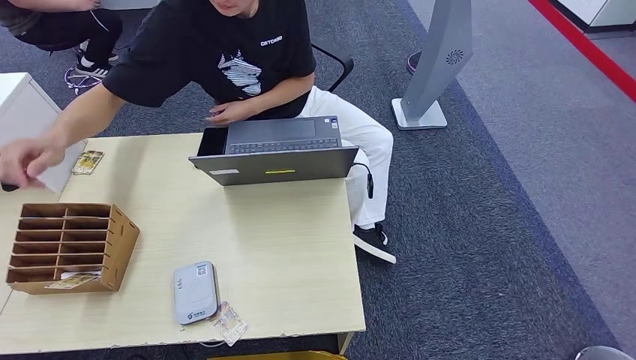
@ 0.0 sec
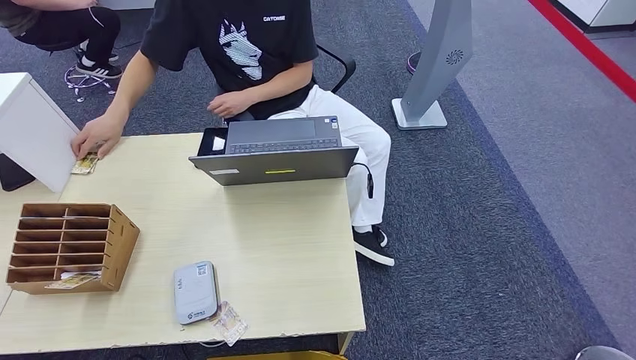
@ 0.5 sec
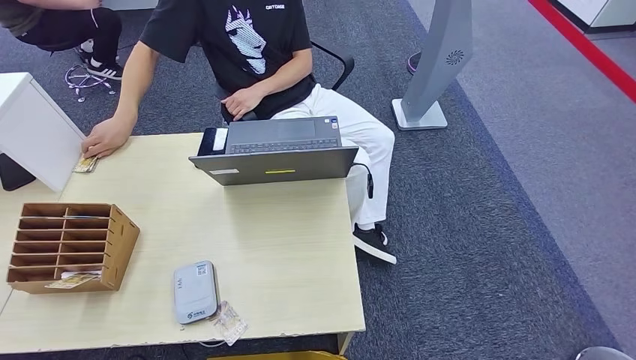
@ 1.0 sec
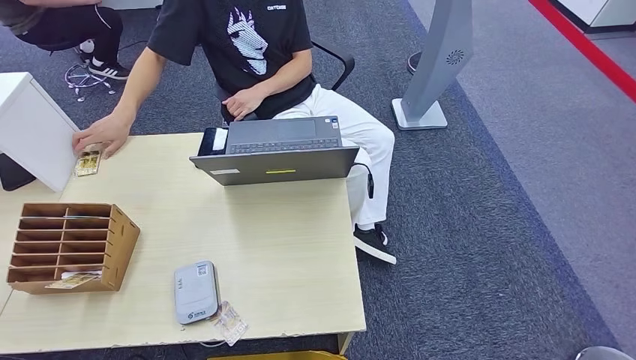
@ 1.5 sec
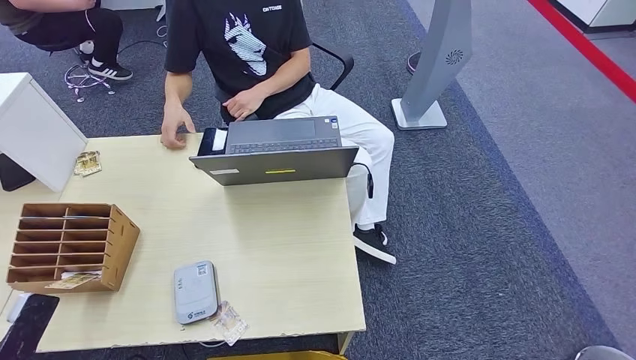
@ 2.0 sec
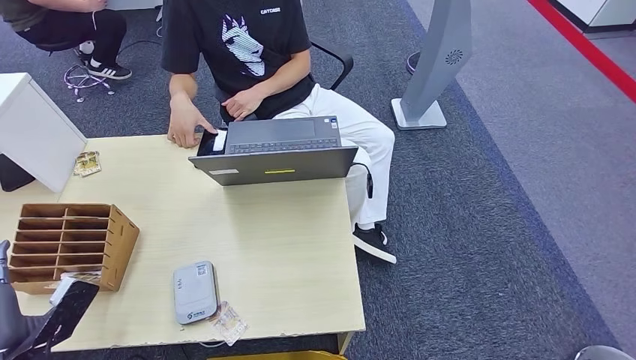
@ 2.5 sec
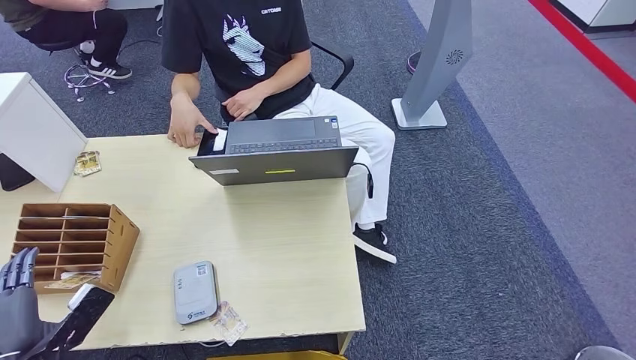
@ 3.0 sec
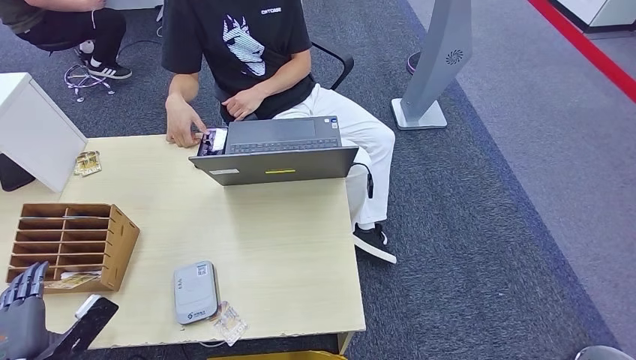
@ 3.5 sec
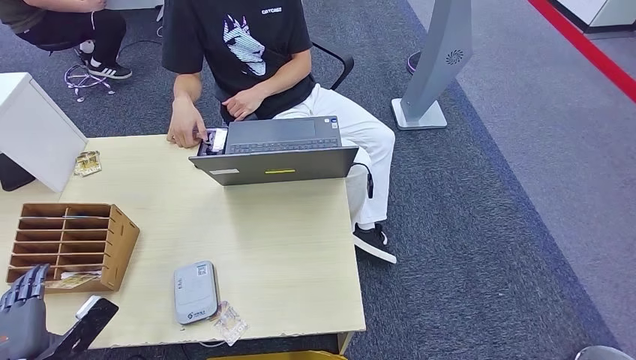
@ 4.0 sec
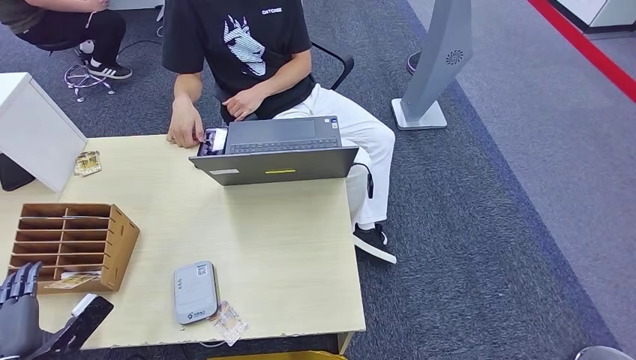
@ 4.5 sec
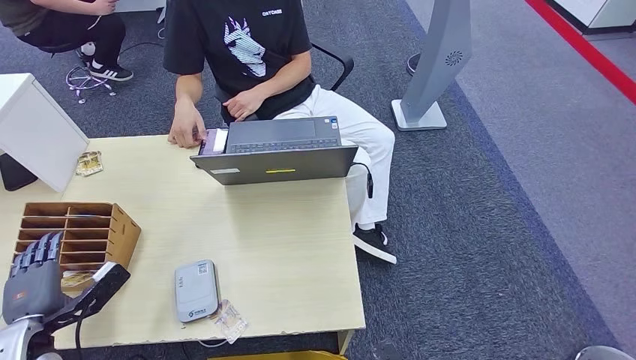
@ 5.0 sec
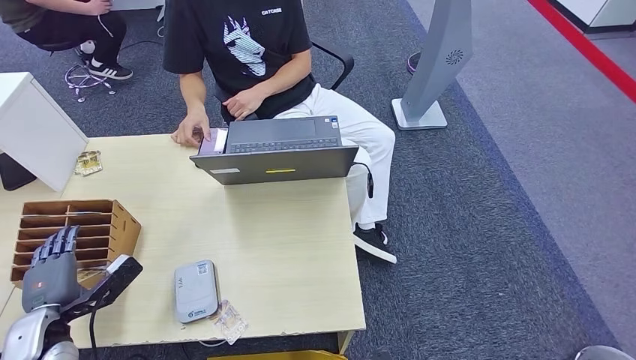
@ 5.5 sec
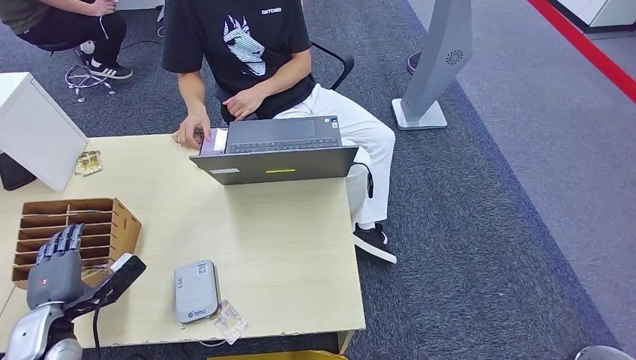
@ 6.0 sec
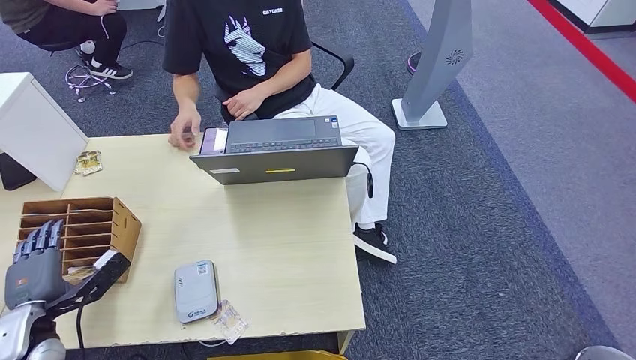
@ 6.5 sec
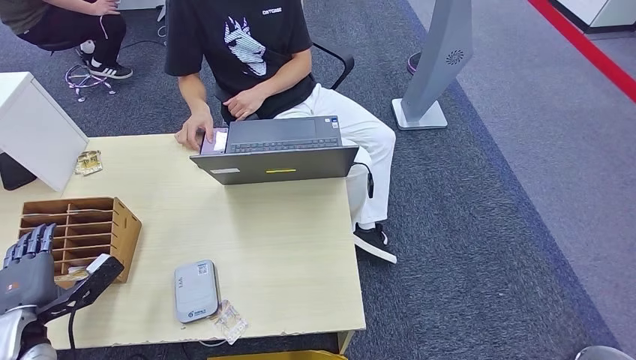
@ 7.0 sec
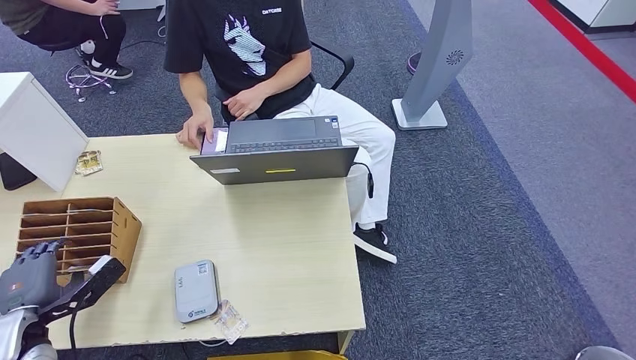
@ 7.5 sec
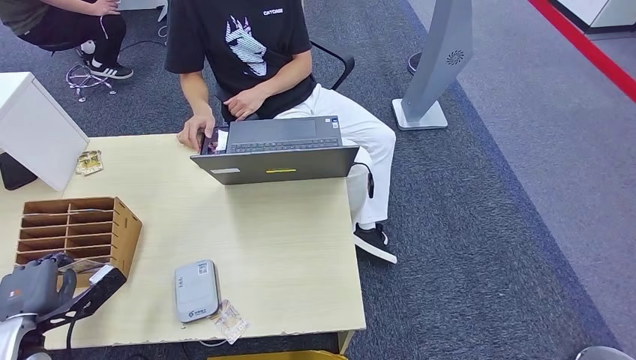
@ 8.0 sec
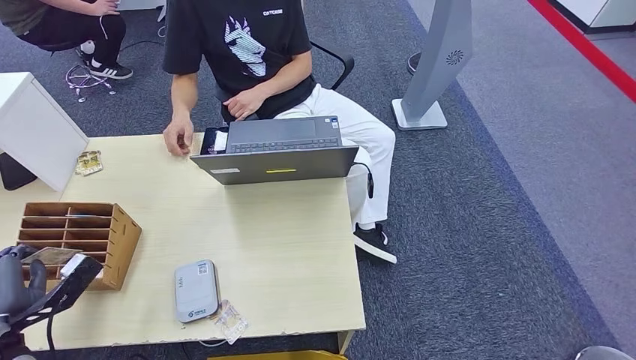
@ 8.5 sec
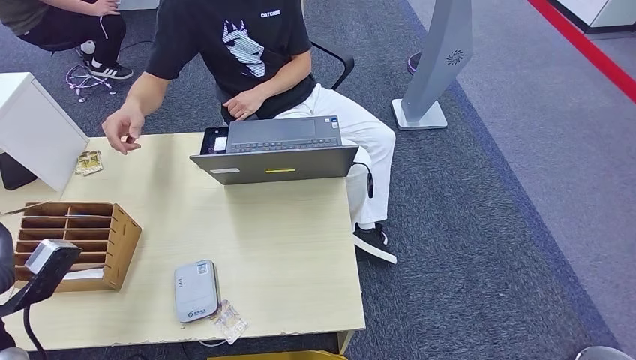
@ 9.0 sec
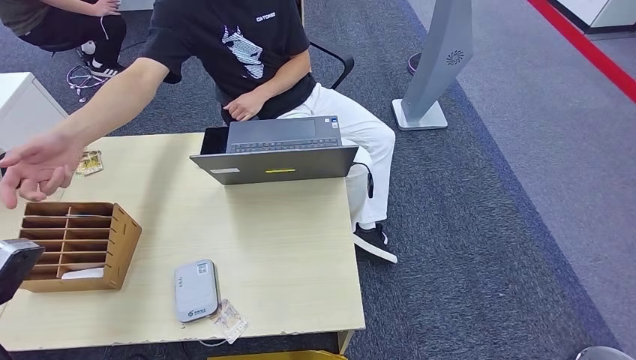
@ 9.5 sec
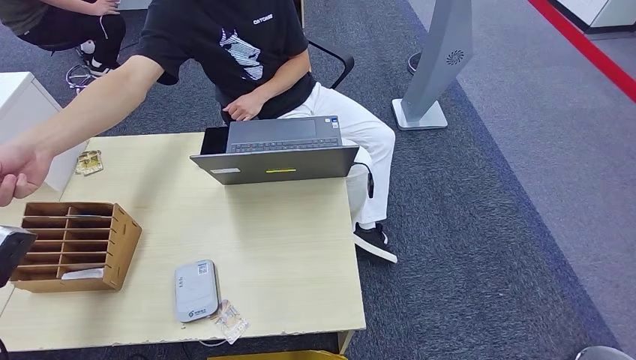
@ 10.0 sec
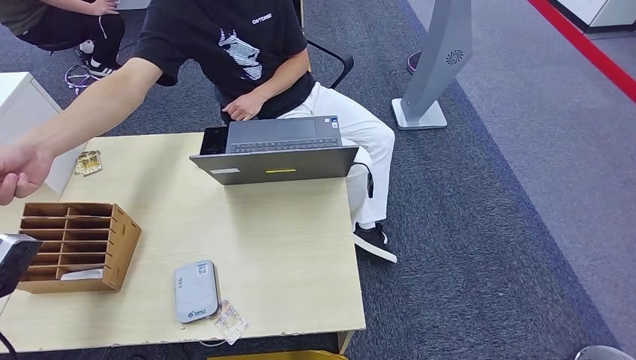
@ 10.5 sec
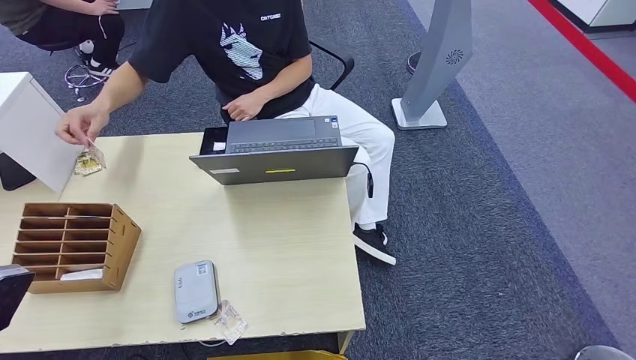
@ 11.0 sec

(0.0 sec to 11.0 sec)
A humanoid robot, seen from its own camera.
Step, 0.0 sec - 8.5 sec: Pick up the room key from the key card box.
Step, 9.0 sec - 11.0 sec: Hand the room key to the person.
0.0 sec - 2.0 sec: The left hand goes roughly 15 cm forward and downward.
2.0 sec - 3.5 sec: The hands stay close to where they were, moving slightly.
3.5 sec - 5.5 sec: The right hand moves forward, roughly 5 cm; the left hand heads forward, covering approximately 10 cm.
5.5 sec - 7.5 sec: There are only small adjustments of the hands.
7.5 sec - 9.0 sec: The left hand is displaced upward by roughly 10 cm.
9.0 sec - 11.0 sec: The hands move only a little.
